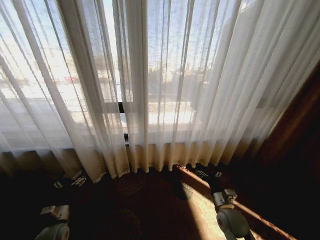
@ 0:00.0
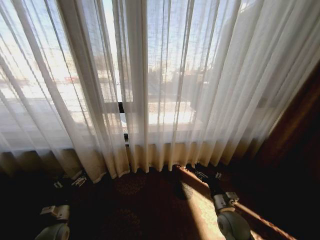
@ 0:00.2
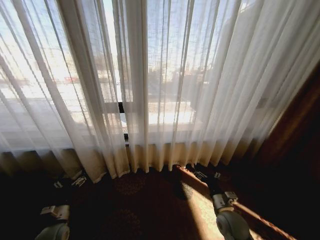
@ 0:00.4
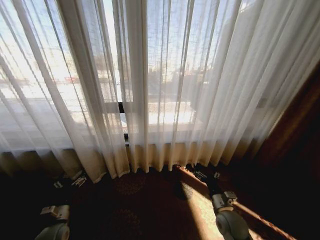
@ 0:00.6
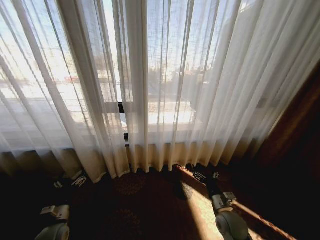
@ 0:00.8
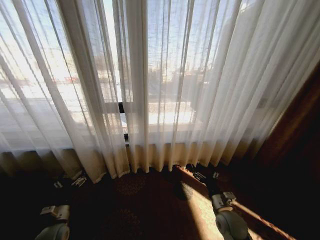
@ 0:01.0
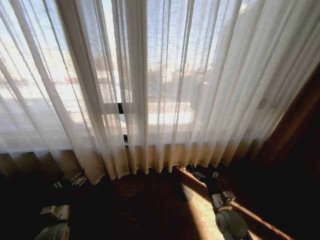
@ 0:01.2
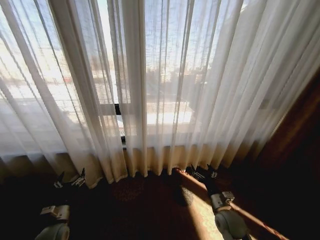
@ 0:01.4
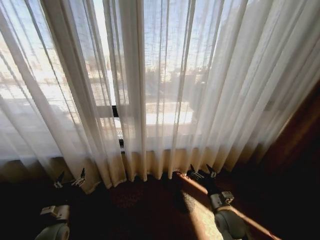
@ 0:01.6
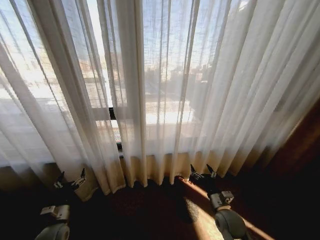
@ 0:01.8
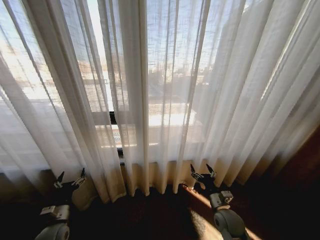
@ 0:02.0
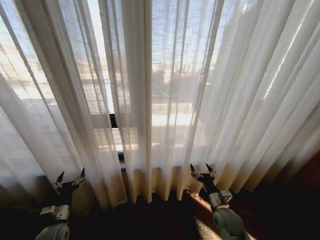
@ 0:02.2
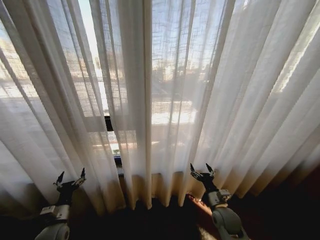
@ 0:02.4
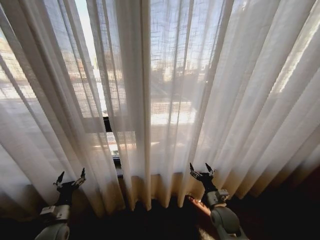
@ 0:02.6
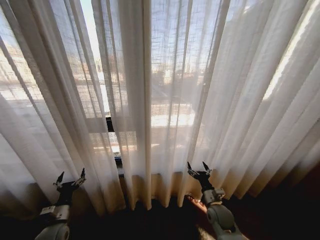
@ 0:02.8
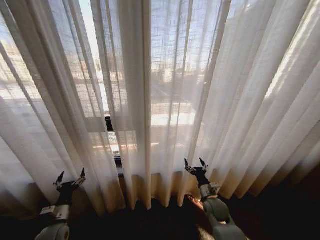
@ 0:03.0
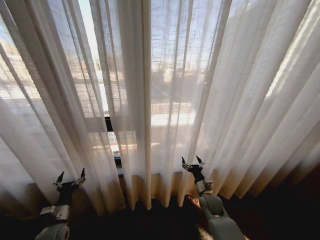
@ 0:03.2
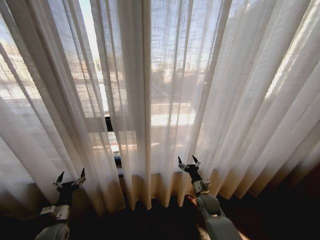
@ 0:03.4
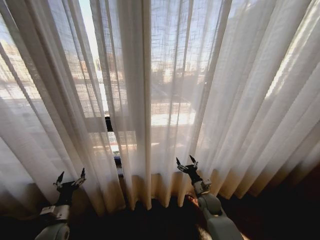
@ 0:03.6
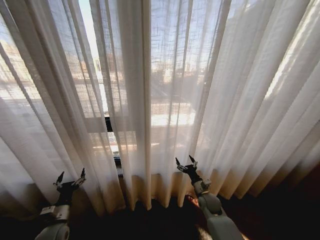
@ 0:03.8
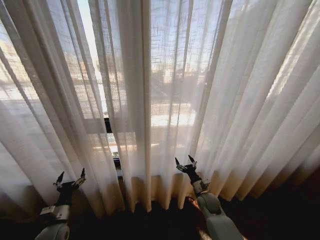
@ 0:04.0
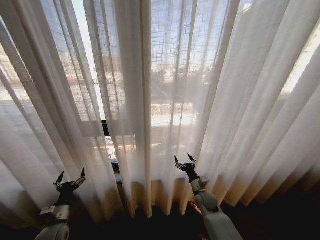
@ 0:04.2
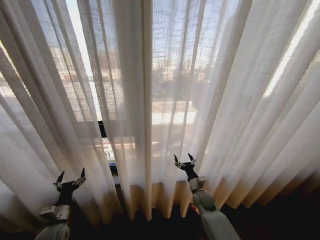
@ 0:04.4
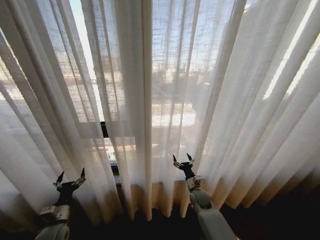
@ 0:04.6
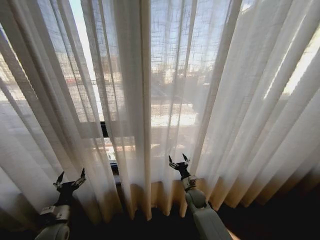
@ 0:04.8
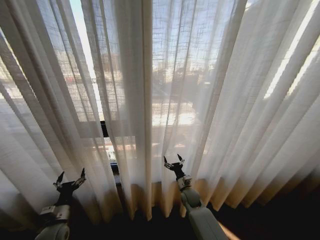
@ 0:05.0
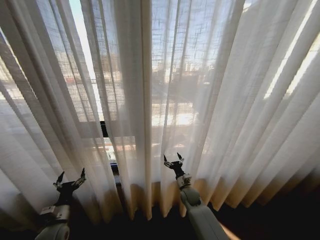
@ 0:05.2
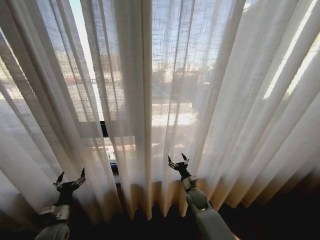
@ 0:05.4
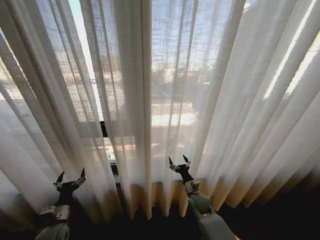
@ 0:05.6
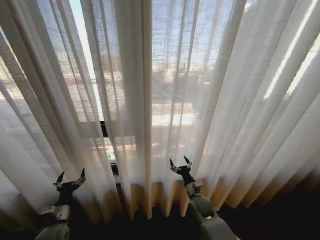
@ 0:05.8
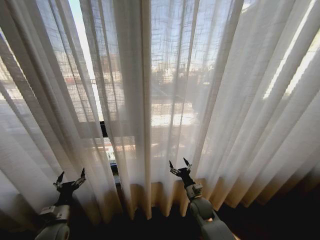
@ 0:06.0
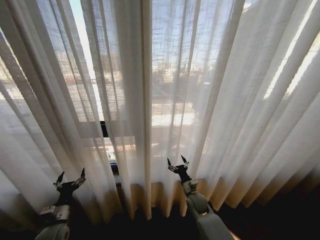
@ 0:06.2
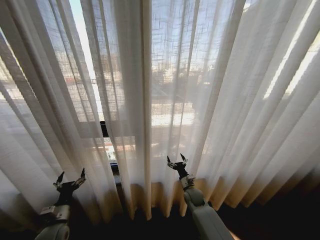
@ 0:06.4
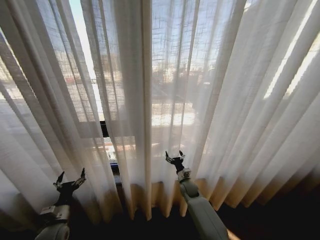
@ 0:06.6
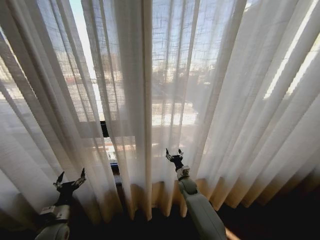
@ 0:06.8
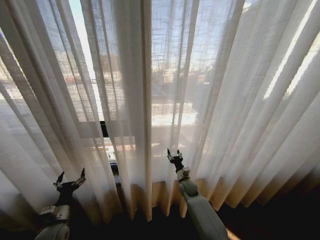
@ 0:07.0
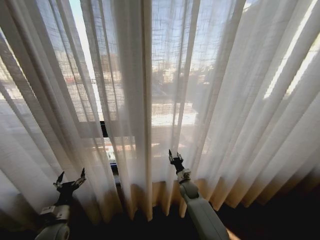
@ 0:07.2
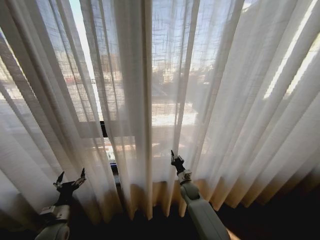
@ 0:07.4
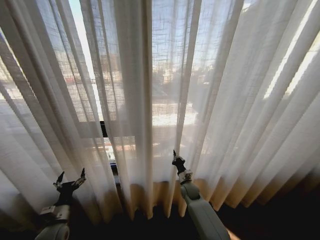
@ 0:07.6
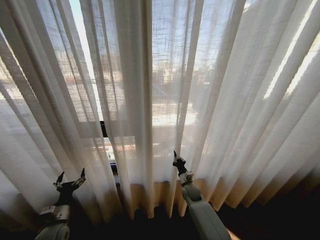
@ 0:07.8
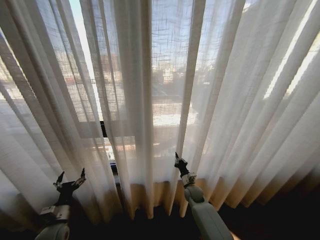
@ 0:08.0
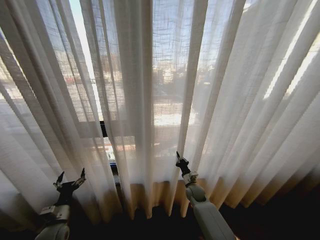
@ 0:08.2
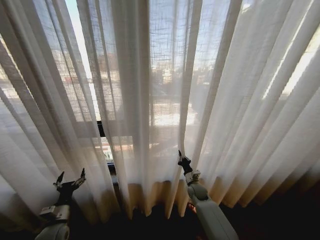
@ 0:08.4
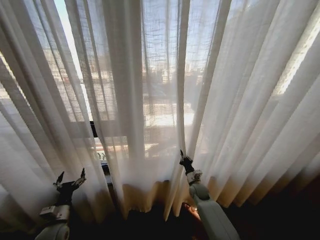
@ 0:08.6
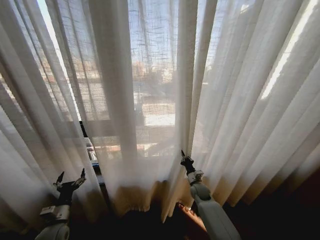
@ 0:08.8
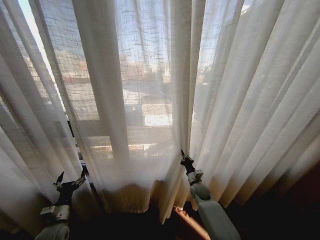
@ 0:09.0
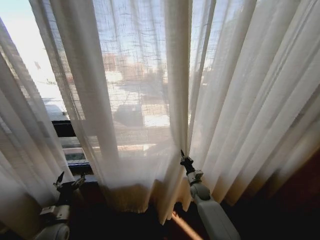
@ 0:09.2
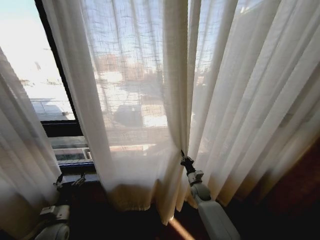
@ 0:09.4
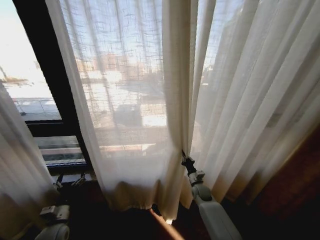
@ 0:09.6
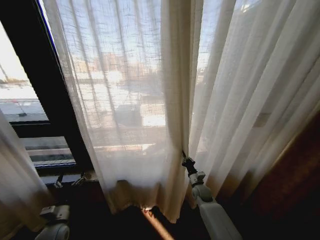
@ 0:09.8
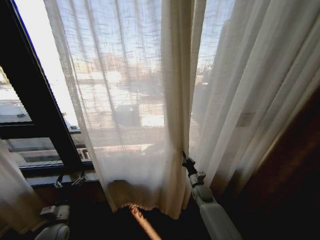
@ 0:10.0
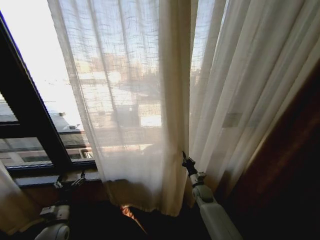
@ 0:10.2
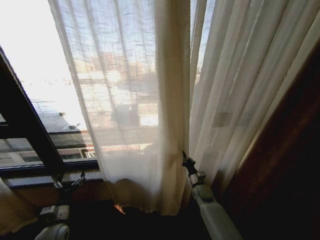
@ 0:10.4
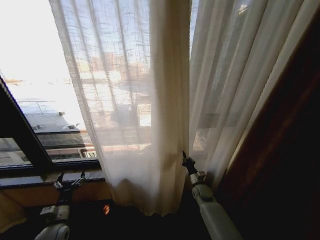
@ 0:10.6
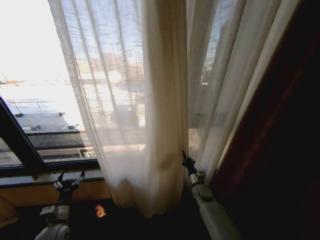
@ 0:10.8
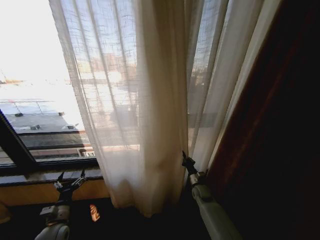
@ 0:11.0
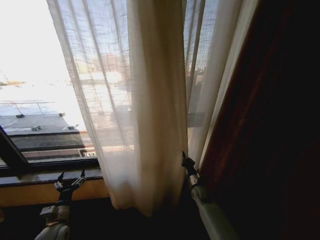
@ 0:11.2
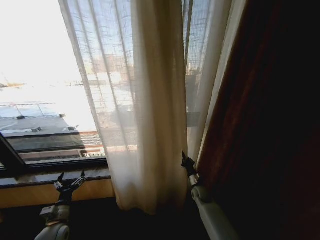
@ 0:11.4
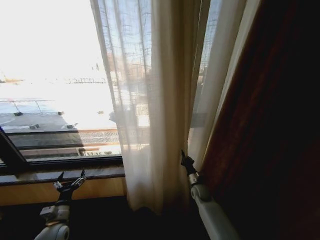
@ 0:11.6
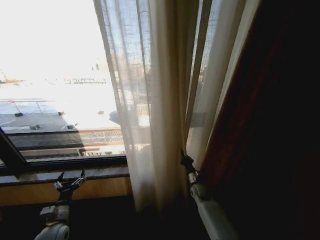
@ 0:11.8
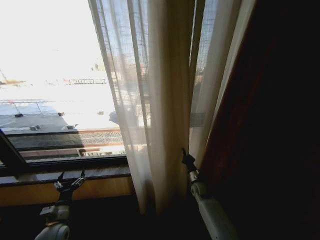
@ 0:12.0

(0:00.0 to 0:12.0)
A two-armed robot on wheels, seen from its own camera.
Task of the whole recording: Open the curtains by pulling them apart, changing their state from closed to fully open.
0:01.6 - 0:03.0: The right gripper shifts approximately 5 cm forward.
0:03.0 - 0:04.4: The right gripper changes place by some 5 cm.
0:06.0 - 0:07.6: The right gripper goes some 10 cm forward, and closes its fingers.
0:07.6 - 0:09.0: The right gripper shifts roughly 5 cm to the right.

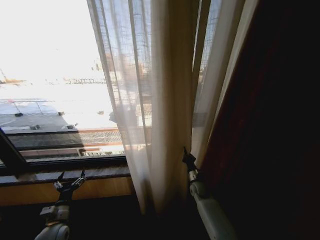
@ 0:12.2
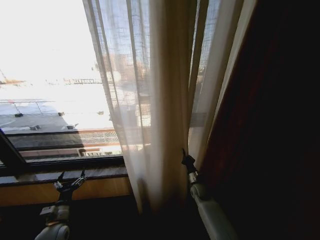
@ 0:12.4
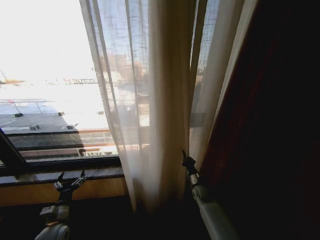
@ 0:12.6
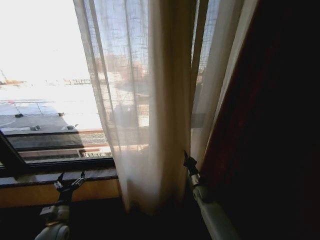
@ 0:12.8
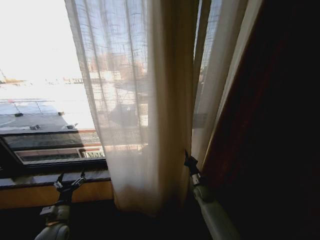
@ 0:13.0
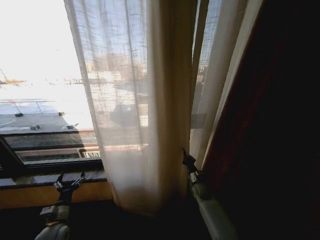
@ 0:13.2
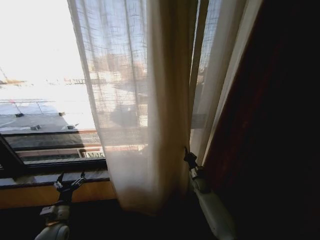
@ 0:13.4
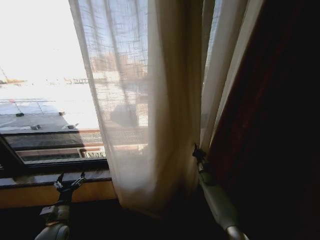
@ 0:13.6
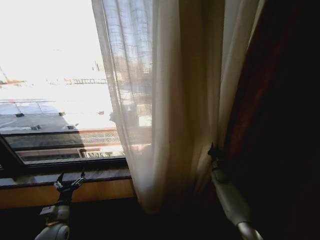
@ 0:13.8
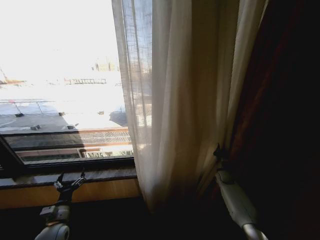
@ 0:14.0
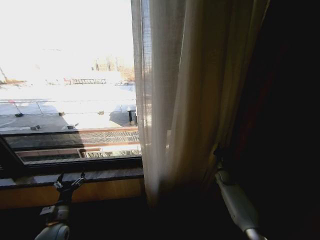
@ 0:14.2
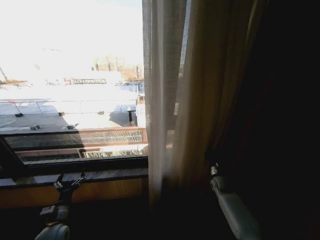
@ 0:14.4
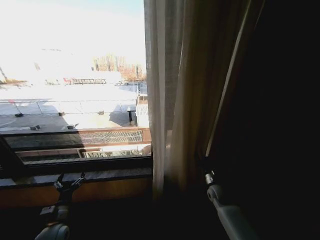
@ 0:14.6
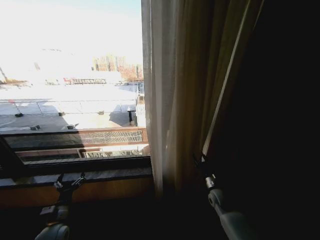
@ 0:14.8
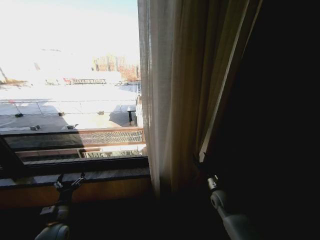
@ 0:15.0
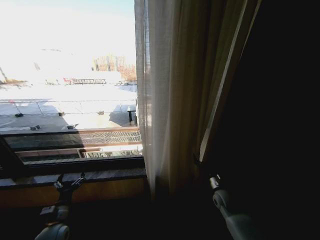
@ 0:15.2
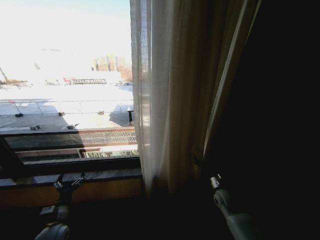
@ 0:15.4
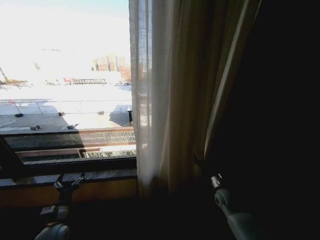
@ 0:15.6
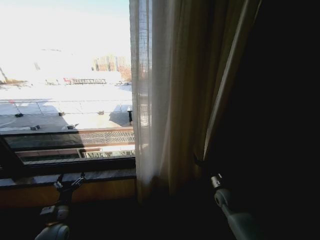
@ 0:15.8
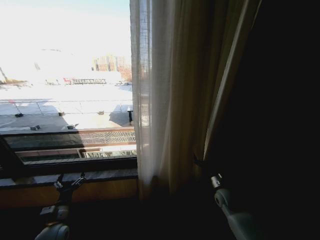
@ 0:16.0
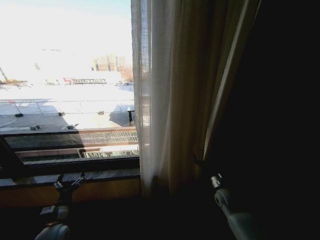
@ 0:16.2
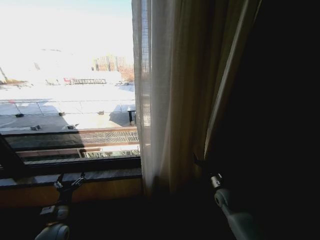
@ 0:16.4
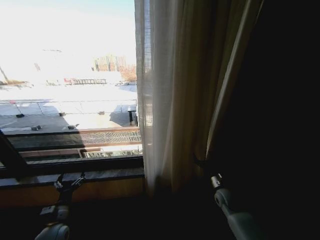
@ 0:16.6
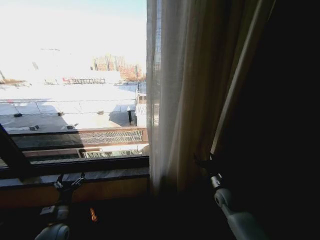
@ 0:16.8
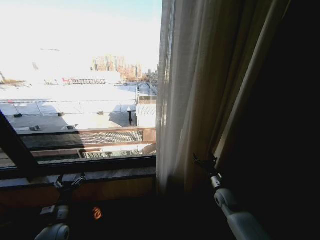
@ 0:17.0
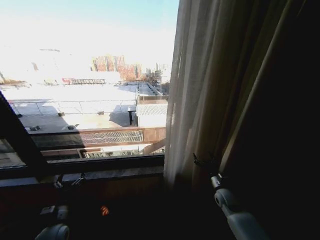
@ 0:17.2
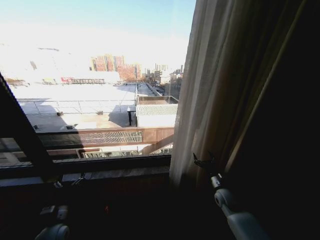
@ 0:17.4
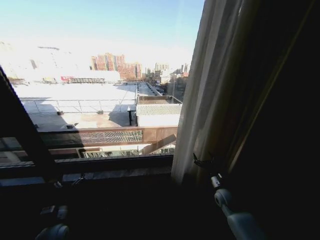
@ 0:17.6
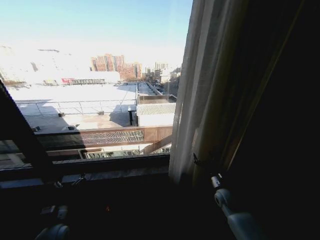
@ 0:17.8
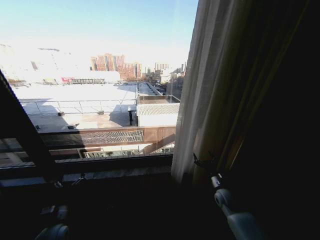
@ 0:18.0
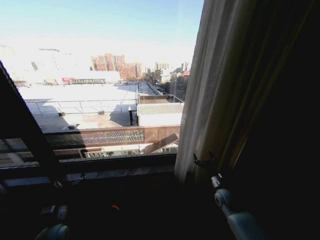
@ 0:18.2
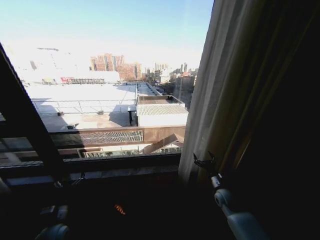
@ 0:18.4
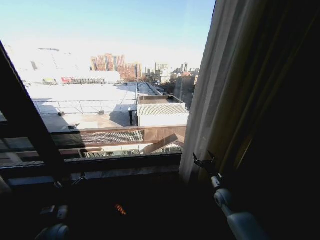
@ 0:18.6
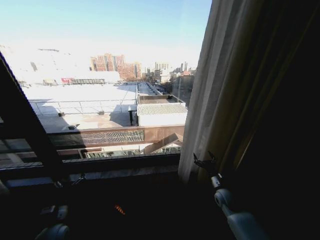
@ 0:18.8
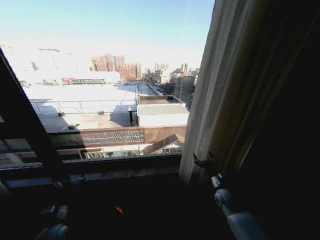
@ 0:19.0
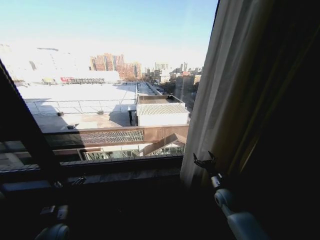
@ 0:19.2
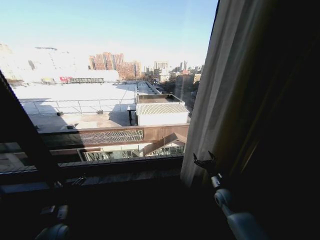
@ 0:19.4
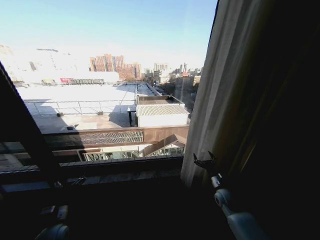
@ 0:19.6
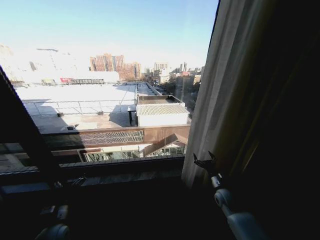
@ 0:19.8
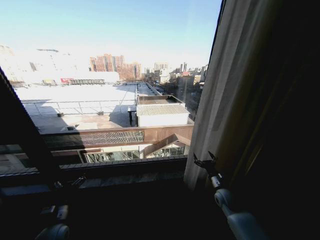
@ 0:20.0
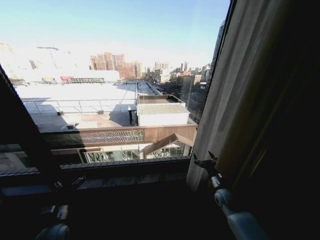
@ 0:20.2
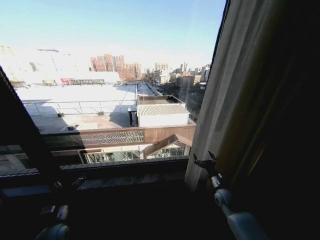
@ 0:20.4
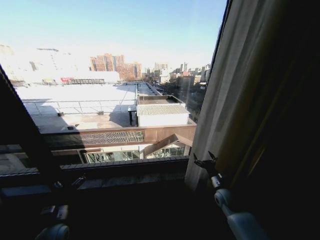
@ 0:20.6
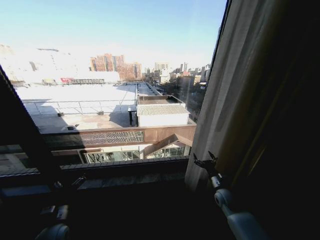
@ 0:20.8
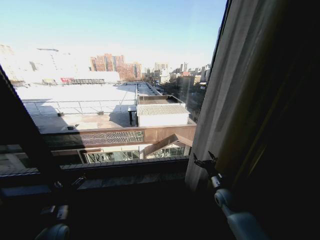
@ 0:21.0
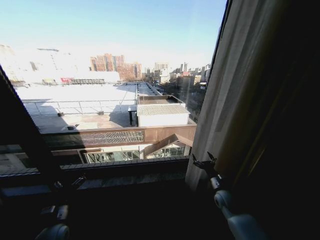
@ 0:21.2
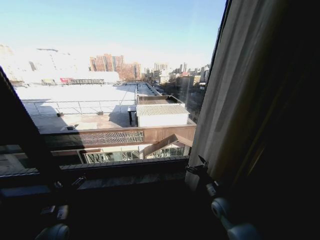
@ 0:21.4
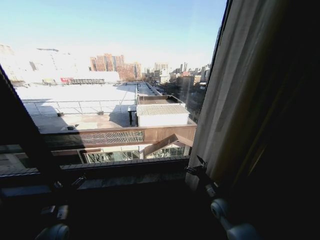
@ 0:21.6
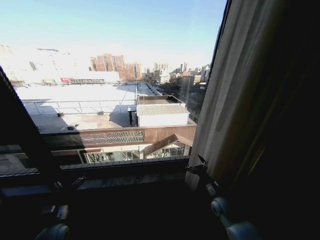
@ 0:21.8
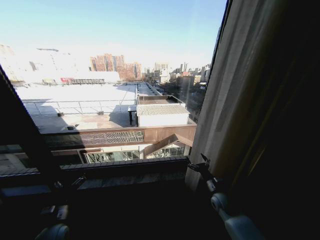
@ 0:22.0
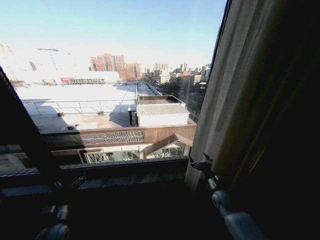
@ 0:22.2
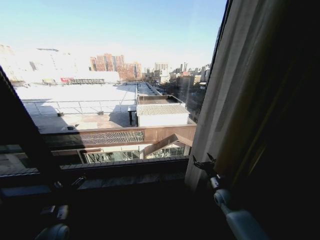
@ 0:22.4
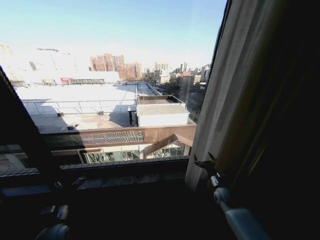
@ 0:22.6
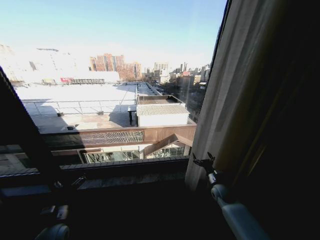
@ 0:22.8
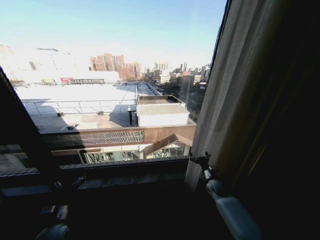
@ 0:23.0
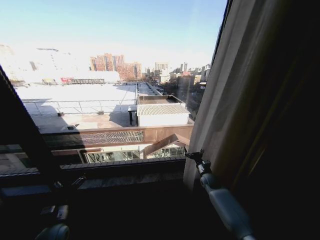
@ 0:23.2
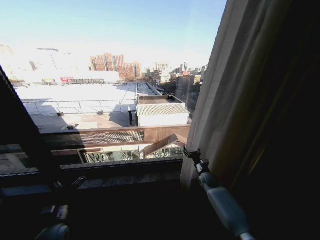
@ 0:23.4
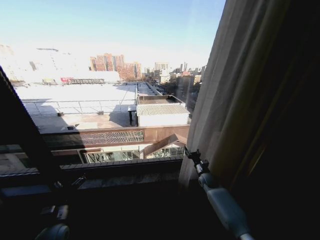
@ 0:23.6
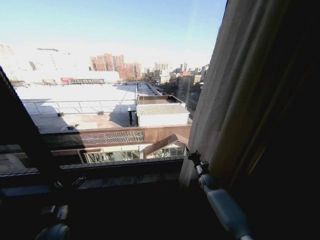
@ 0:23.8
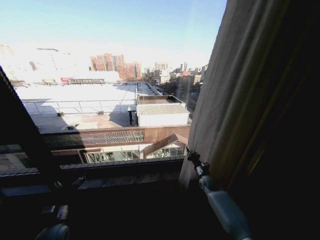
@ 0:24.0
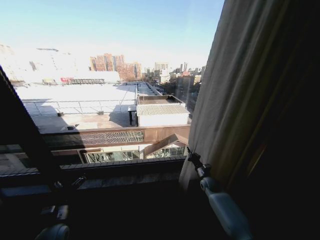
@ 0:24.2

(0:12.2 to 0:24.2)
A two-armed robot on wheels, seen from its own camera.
Task of the whole recording: Open the curtains by pulling them apart, changing their state from closed to fully open.
0:12.2 - 0:13.8: The right gripper travels to the right and forward by approximately 15 cm.
0:13.8 - 0:15.2: The right gripper heads backward, covering roughly 15 cm, and opens its fingers.
0:15.2 - 0:16.6: Both grippers stay about where they are.
0:18.2 - 0:21.2: Both grippers stay about where they are.
0:22.6 - 0:24.2: The right gripper goes roughly 10 cm forward, and closes.
